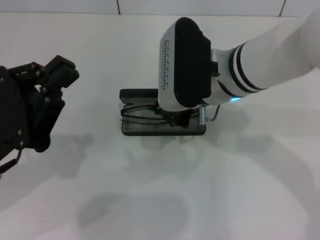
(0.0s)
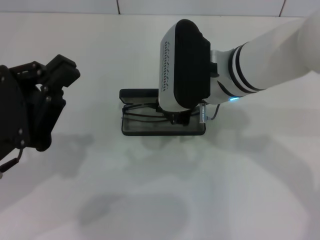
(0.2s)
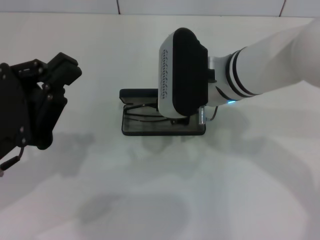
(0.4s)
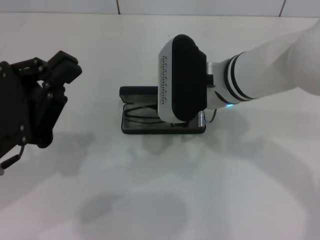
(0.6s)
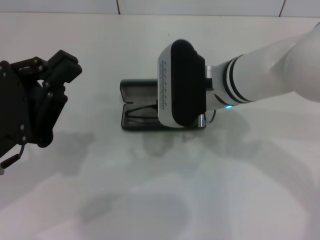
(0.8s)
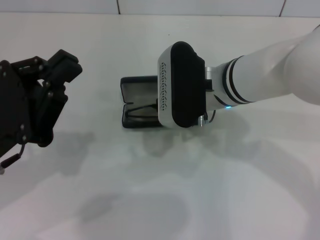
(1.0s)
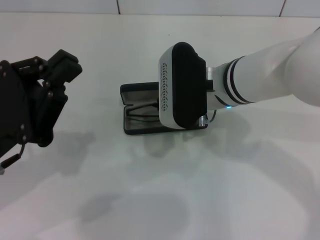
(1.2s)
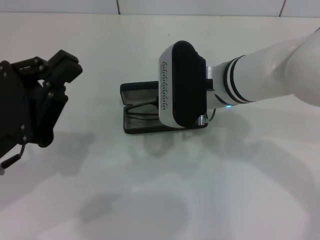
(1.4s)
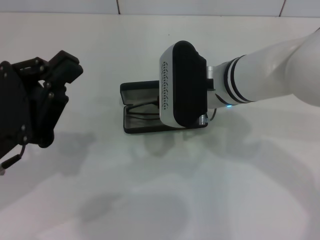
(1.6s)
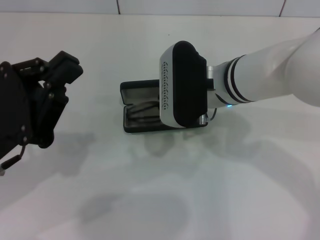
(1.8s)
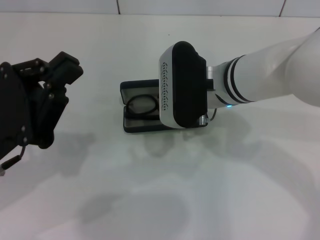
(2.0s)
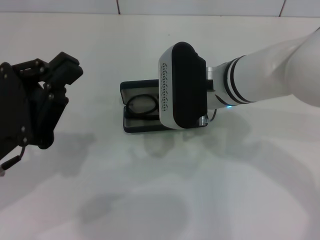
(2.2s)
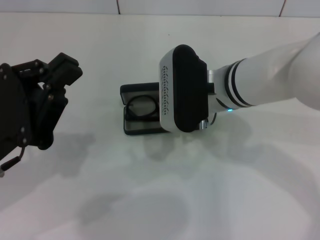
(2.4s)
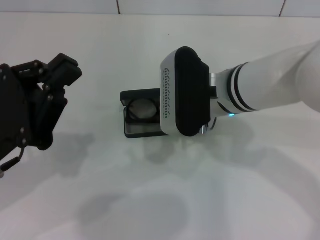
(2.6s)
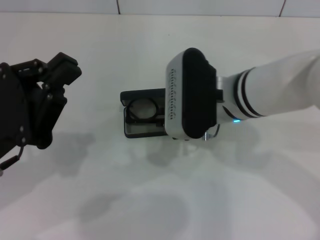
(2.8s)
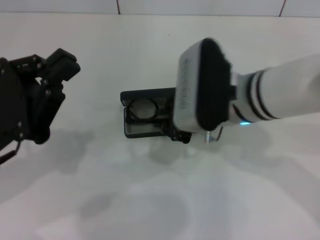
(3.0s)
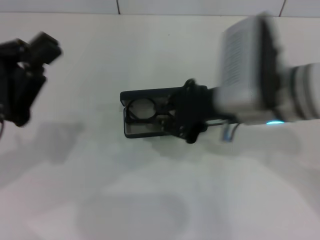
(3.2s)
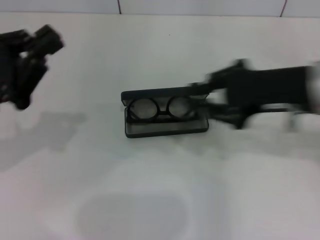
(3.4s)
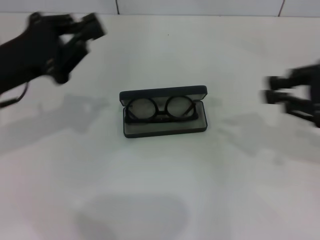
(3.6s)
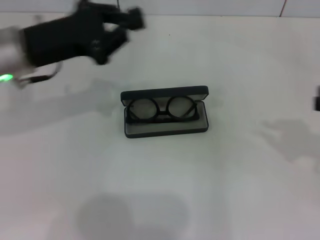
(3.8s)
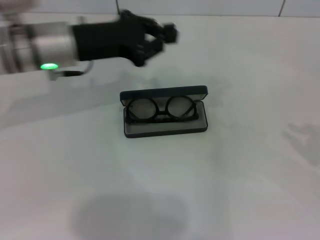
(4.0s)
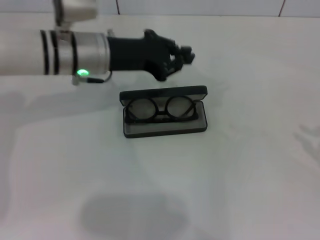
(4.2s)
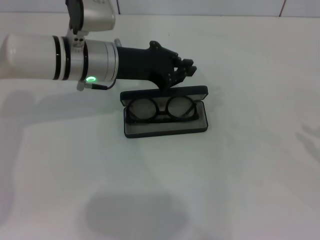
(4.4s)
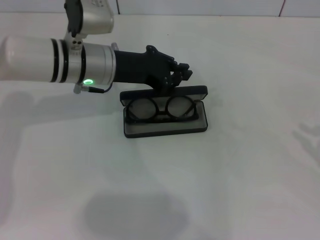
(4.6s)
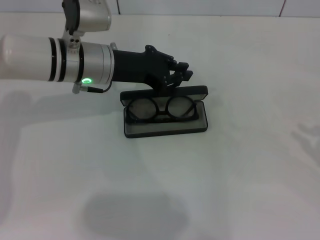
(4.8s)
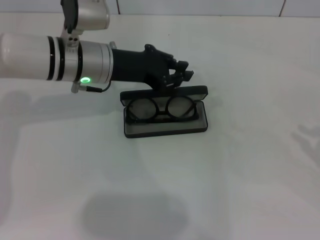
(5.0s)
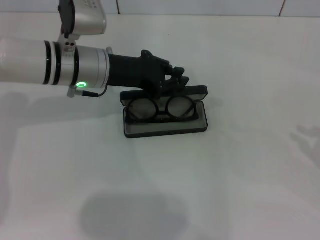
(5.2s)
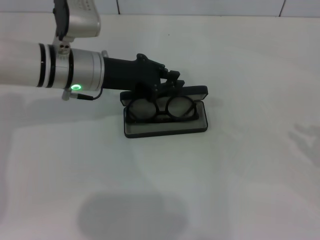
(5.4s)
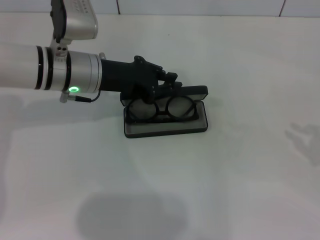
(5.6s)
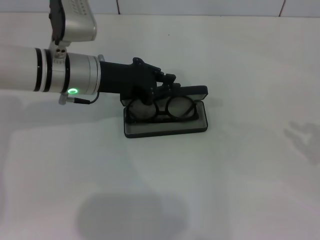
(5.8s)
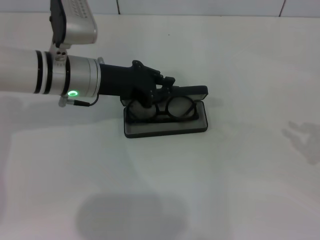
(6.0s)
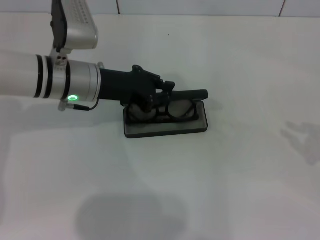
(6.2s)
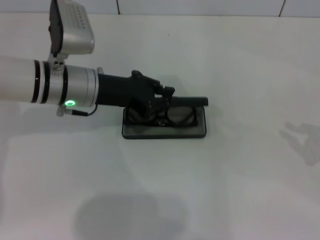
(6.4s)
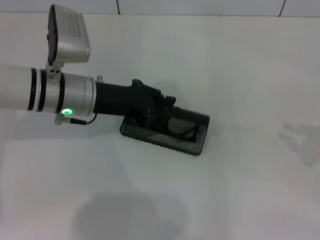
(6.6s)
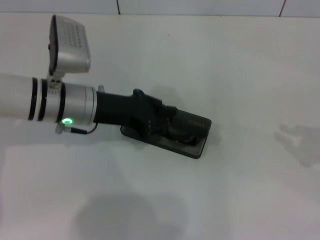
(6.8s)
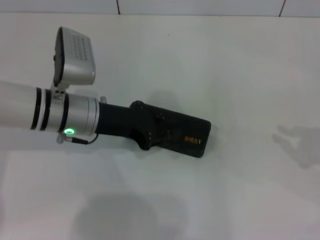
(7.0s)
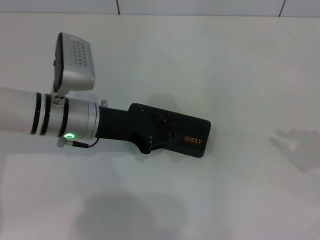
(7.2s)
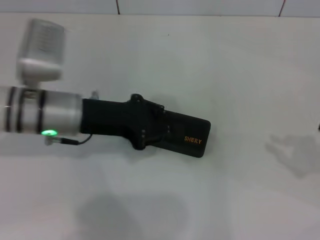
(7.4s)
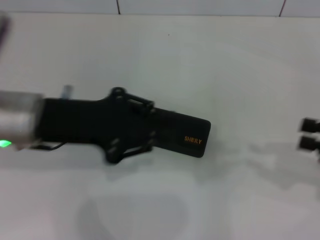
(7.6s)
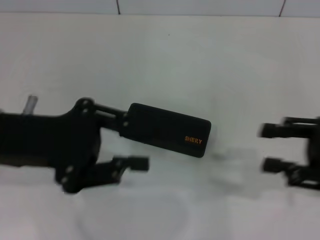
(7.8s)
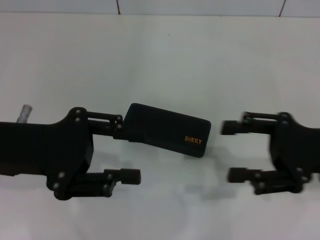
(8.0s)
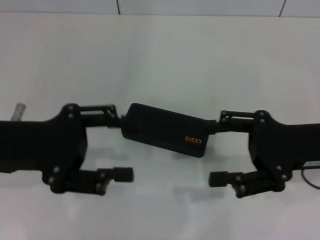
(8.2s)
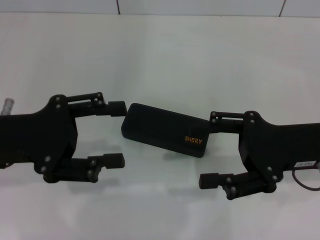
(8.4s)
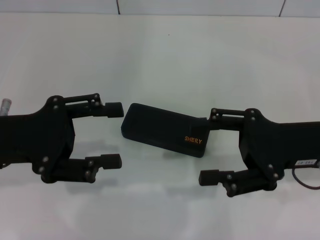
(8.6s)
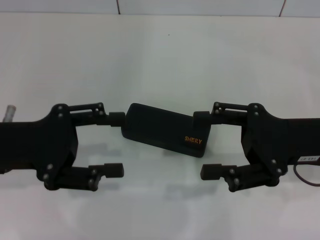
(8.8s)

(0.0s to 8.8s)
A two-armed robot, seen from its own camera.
Step, 0.0s - 2.6s: Put the glasses into the case with your right hand.
Step, 2.8s - 7.0s: Close the glasses case with your left hand.
0.0s - 3.0s: The grippers move only a little.
3.0s - 4.4s: The right gripper is displaced to the right by roughly 35 cm; the left gripper heads forward and to the right, covering about 20 cm.
4.4s - 5.8s: The grippers move only a little.
5.8s - 7.4s: The left gripper is displaced backward by some 5 cm.
7.4s - 8.8s: The right gripper travels to the left by approximately 15 cm, and opens up. Meanwhile the left gripper is displaced to the left and backward by some 10 cm, and opens up.
